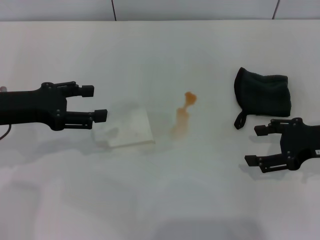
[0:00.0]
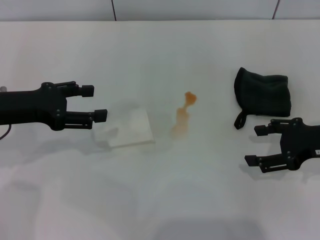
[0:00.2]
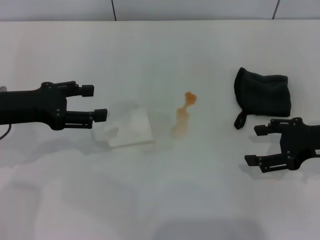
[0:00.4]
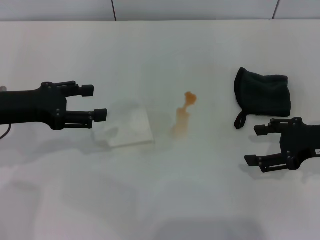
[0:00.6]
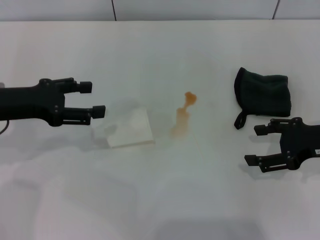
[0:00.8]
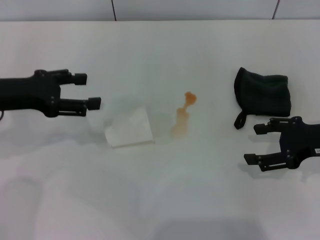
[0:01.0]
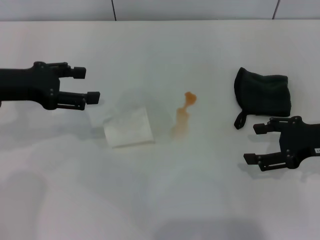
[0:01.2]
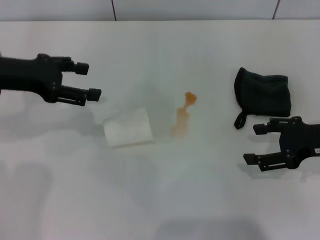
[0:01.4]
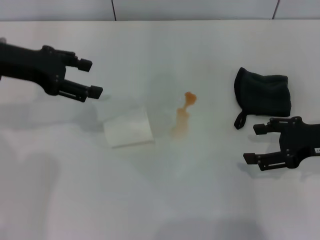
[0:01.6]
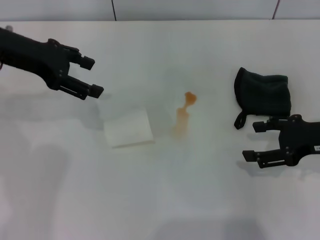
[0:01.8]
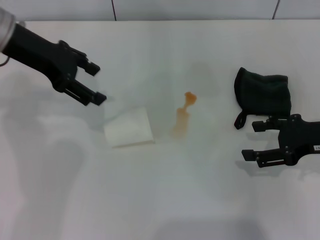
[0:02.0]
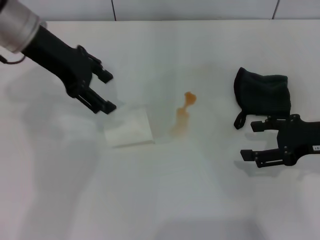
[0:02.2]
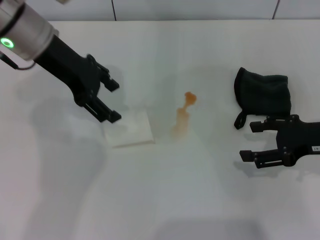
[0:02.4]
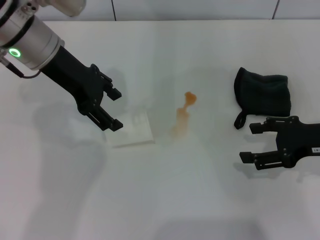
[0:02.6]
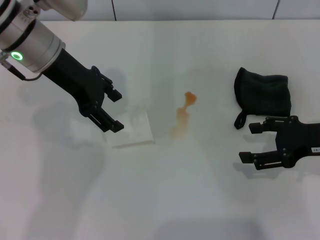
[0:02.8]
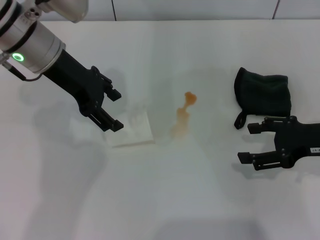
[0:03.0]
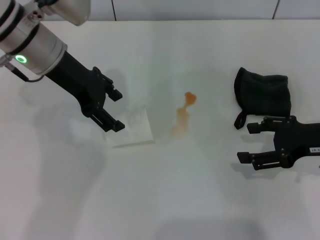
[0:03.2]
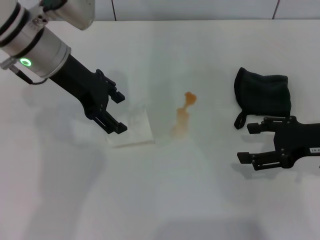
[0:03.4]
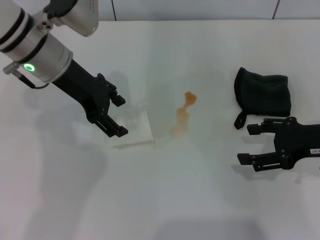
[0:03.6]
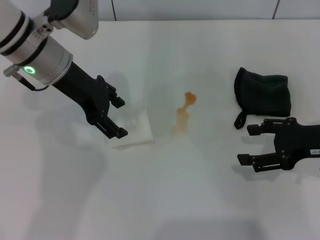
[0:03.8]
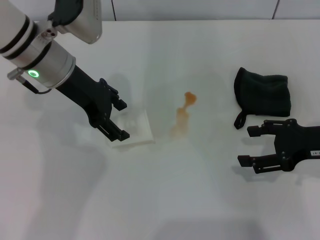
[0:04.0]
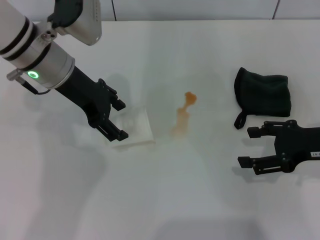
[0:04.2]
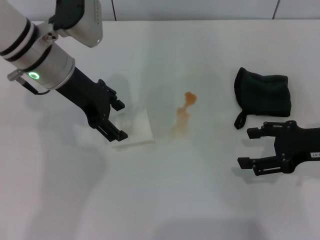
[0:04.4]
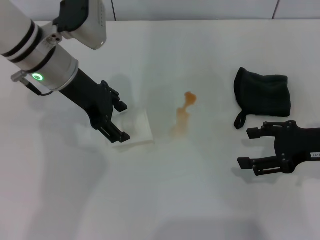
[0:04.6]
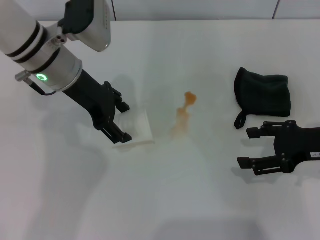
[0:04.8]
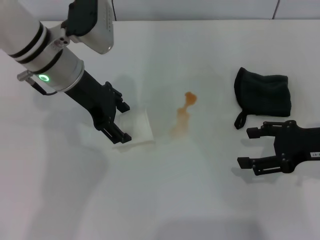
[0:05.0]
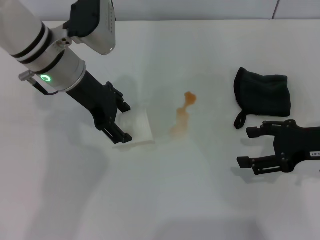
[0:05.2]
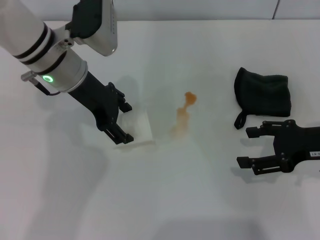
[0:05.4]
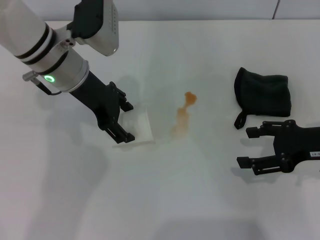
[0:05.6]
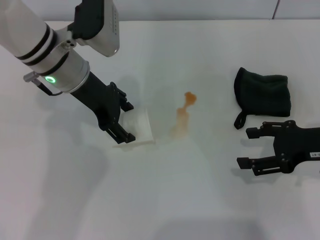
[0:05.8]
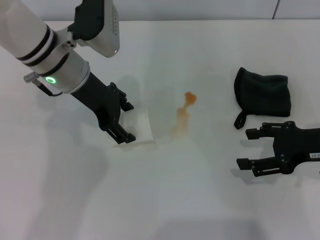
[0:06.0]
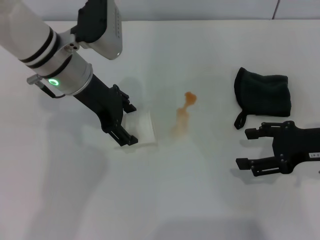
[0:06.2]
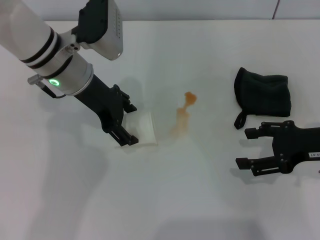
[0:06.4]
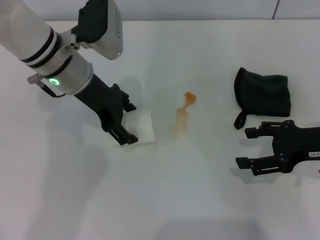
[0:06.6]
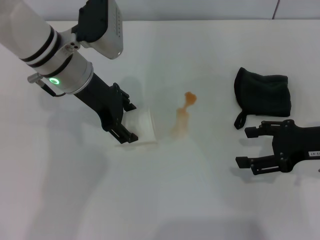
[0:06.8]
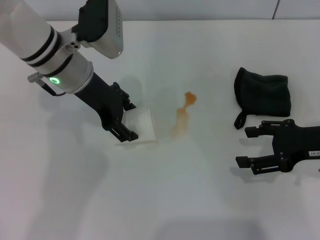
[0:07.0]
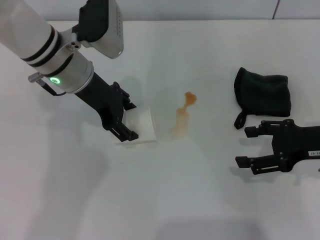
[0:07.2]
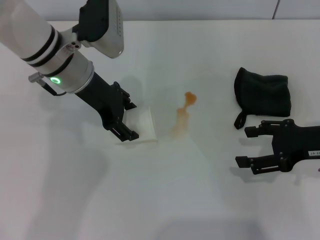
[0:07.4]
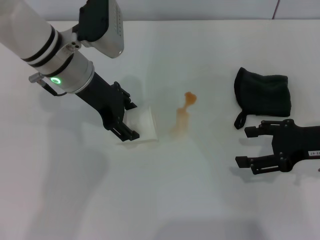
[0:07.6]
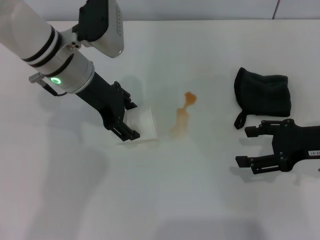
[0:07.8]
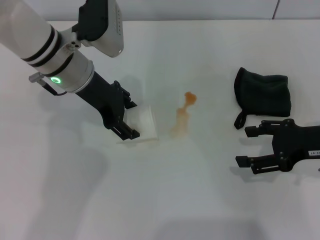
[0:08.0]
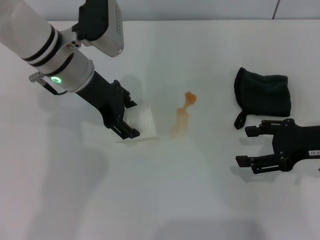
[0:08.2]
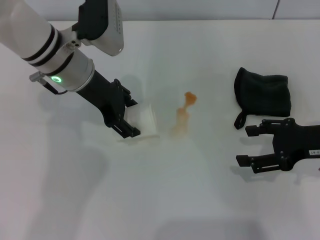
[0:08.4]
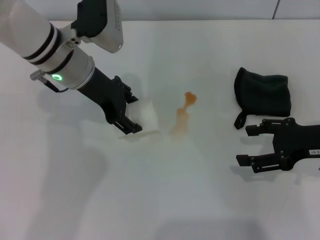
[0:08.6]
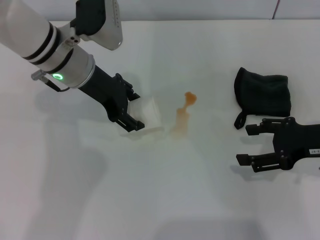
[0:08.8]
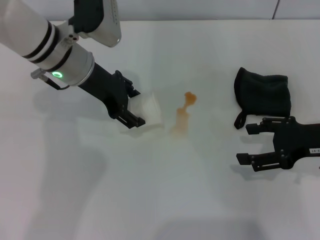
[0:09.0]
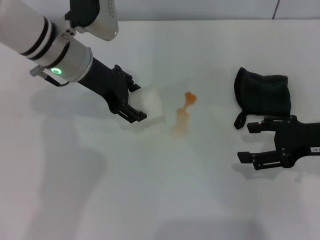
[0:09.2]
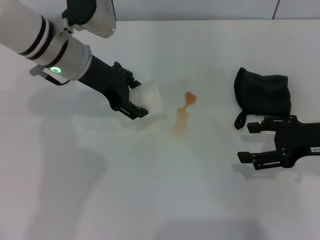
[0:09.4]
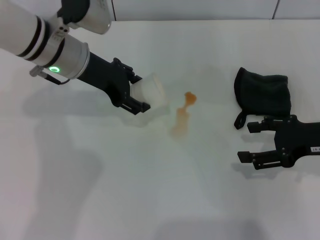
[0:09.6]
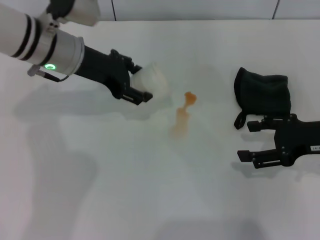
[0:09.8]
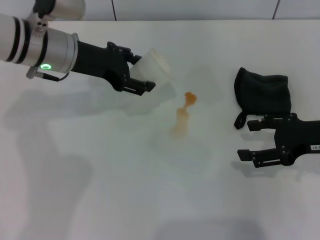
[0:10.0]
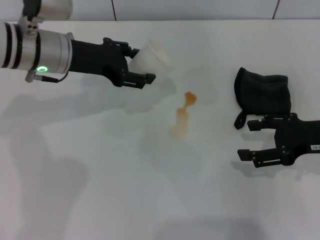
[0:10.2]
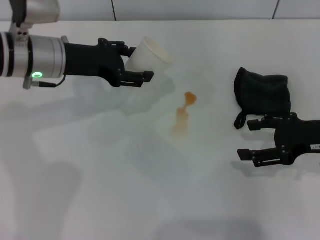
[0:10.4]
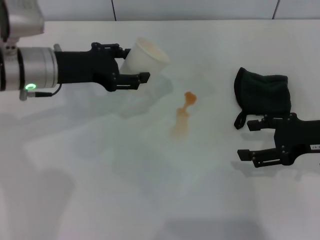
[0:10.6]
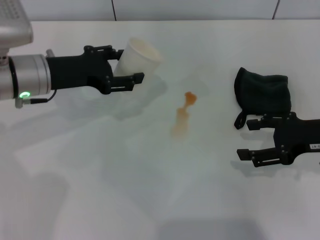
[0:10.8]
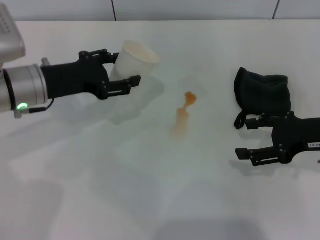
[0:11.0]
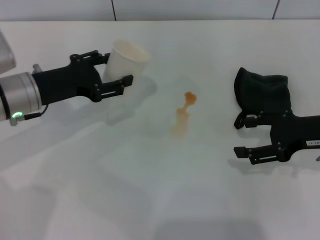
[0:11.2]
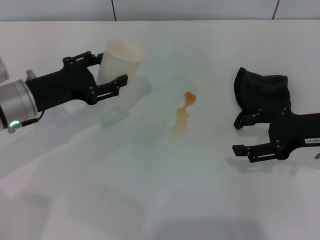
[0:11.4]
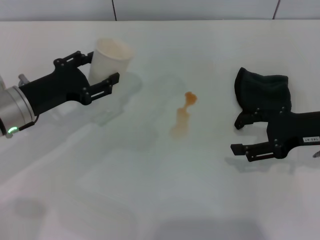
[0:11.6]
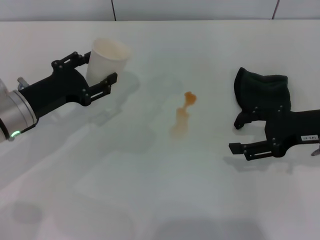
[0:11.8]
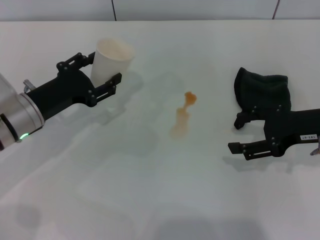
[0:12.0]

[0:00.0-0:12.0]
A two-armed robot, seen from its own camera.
Step, 0:00.0 to 0:07.2: Grasp the paper cup with the left gripper.
0:00.0 to 0:01.6: The left gripper is displaced upward and forward by approximately 10 cm.
0:01.6 to 0:03.0: The left gripper travels to the right by about 10 cm.
0:03.0 to 0:06.0: The grippers move only a little.
0:06.0 to 0:07.6: The left gripper closes its fingers.
0:07.6 to 0:09.0: There are only small adjustments of the grippers.
0:09.0 to 0:10.4: The left gripper shifts by roughly 5 cm.
0:10.4 to 0:12.0: The left gripper is displaced downward and backward by some 10 cm.

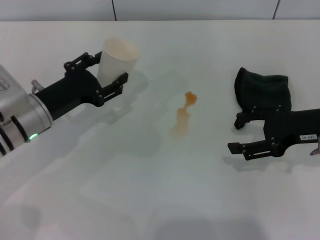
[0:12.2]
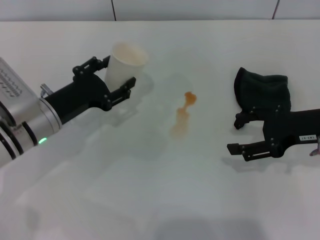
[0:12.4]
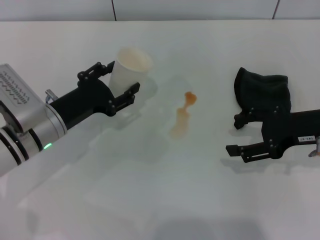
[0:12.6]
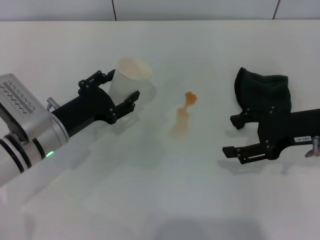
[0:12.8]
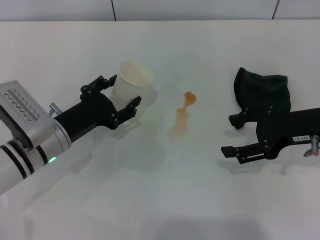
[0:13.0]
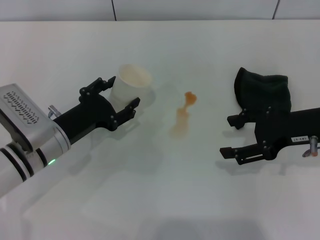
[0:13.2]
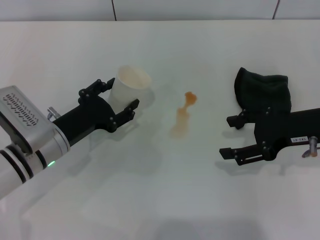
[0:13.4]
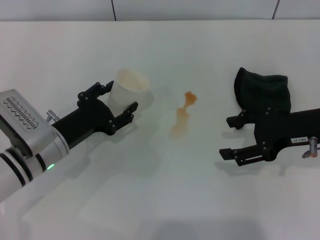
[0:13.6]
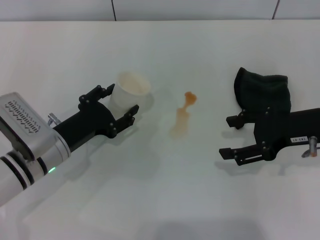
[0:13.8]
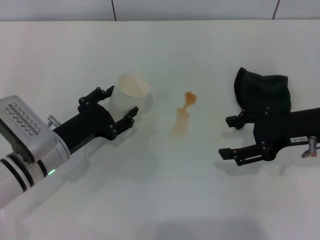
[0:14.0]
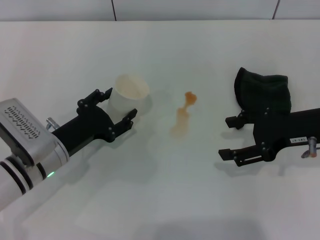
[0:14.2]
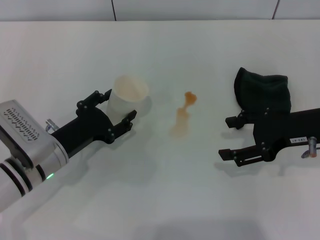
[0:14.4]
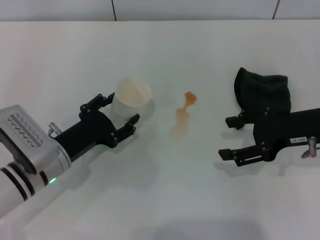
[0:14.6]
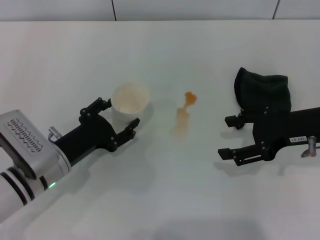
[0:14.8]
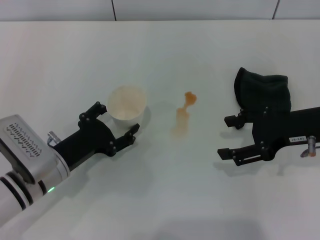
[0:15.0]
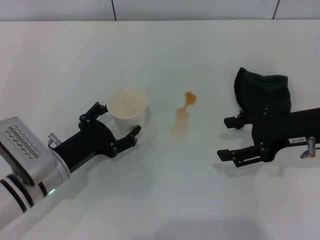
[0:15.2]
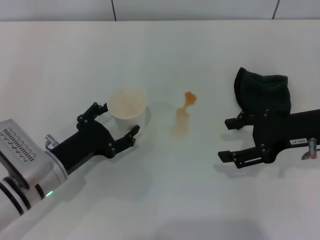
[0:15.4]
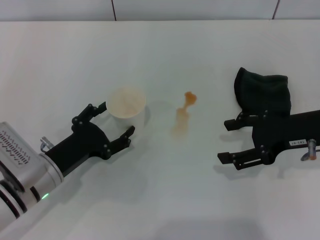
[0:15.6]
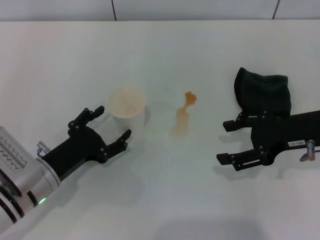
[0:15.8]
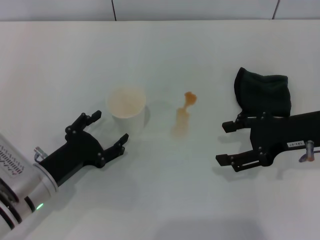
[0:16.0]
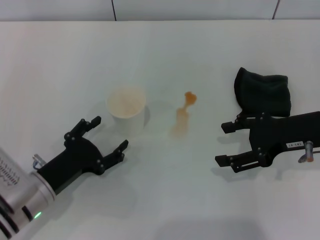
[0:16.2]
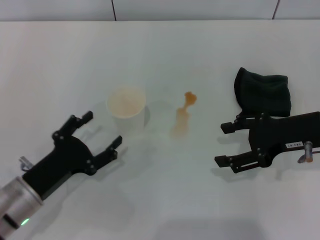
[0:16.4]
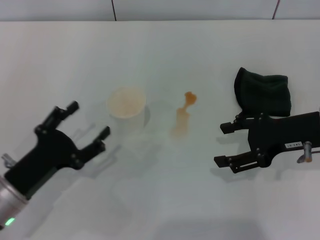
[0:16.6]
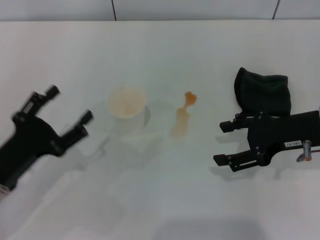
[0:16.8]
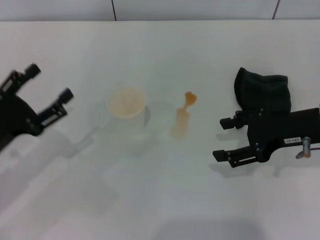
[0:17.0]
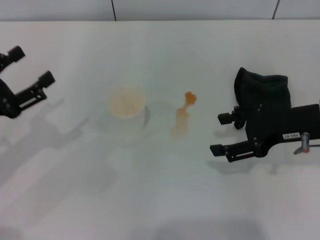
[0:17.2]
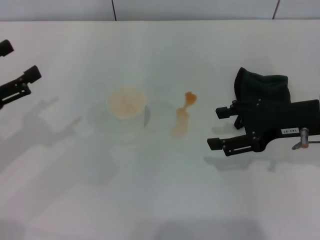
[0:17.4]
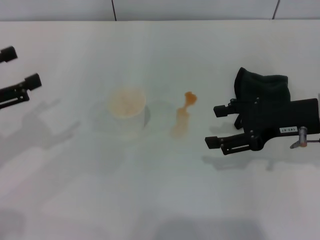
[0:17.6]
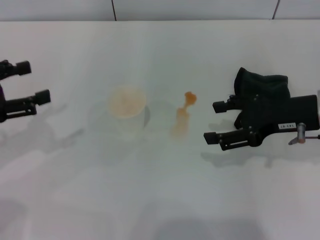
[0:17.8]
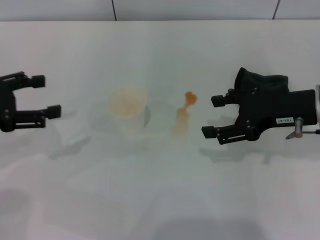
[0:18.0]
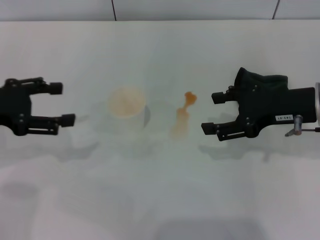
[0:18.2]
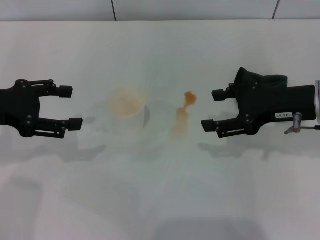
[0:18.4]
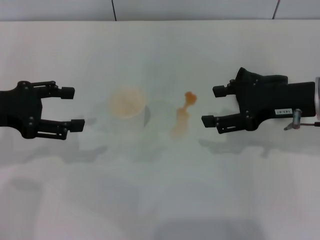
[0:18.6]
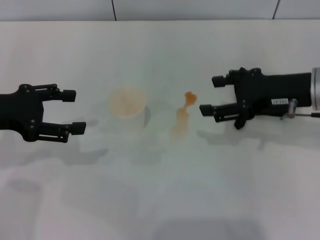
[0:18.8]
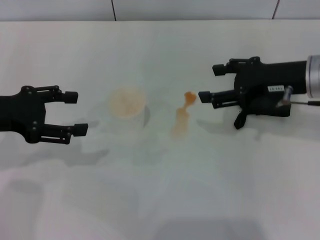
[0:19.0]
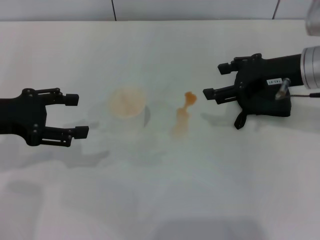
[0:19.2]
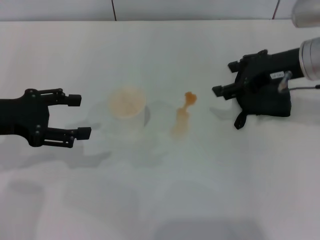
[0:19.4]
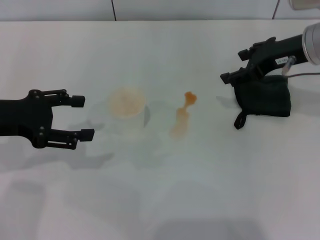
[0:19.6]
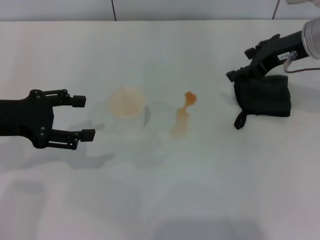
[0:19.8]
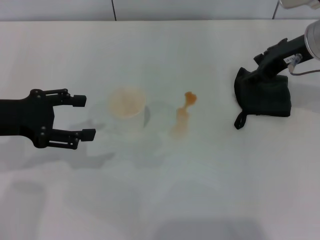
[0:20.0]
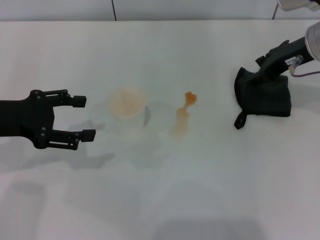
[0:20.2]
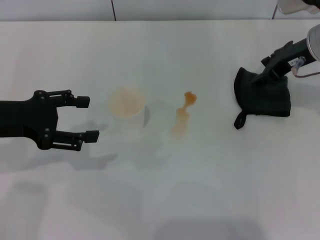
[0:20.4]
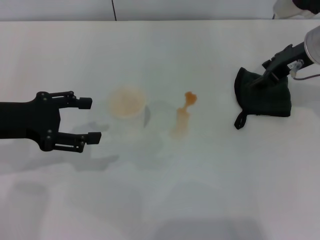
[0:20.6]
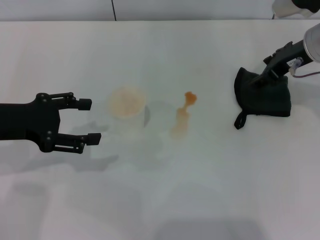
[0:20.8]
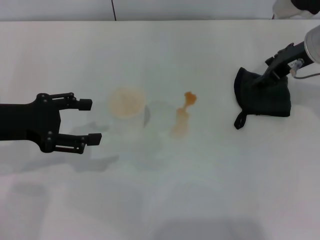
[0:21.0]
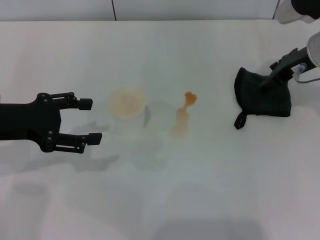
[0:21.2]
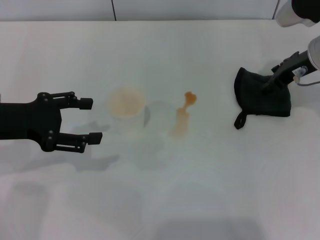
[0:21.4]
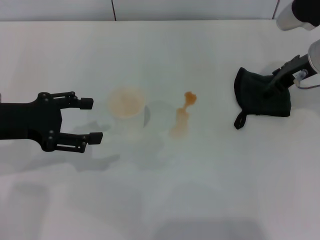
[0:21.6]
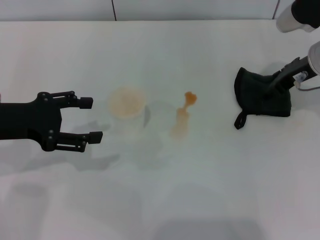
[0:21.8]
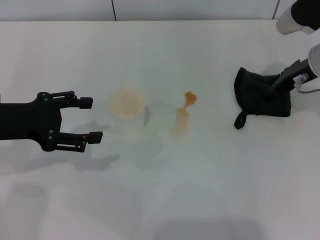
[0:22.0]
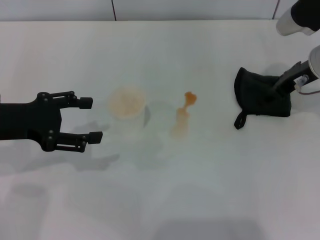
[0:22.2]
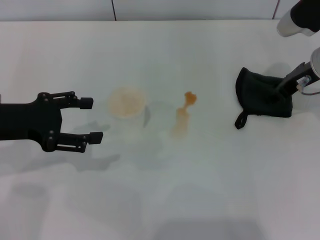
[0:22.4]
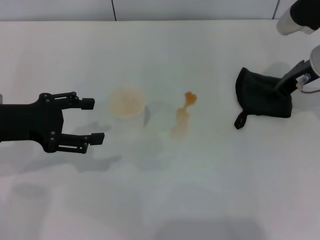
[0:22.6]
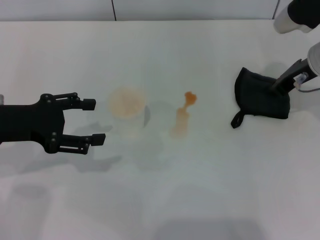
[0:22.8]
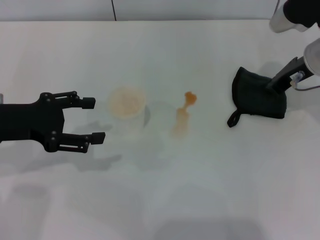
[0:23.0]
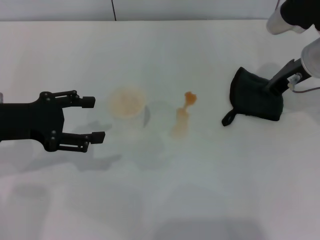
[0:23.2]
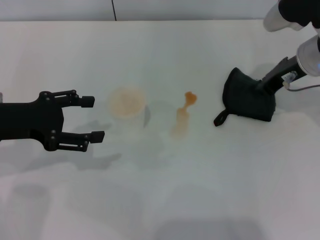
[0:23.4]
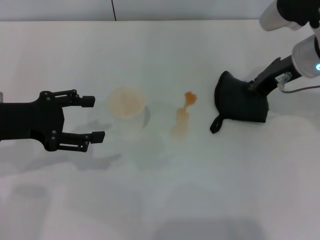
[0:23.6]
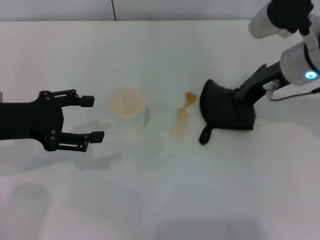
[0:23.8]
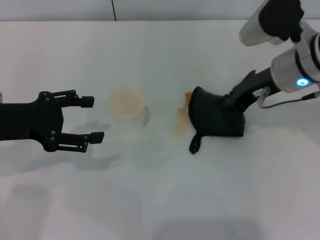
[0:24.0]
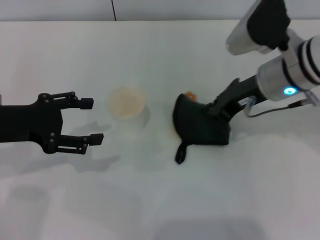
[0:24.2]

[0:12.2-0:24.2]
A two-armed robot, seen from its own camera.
Step, 0:12.2 to 0:16.2: Stand the paper cup upright with the left gripper.
Step, 0:16.4 to 0:23.0: Grasp the rag with the right gripper.
0:12.2 to 0:13.8: The left gripper shifts by roughly 5 cm.
0:13.8 to 0:15.2: There are only small adjustments of the grippers.
0:15.2 to 0:16.6: The left gripper heads backward, covering some 5 cm, and opens up.
0:16.6 to 0:18.2: The left gripper heads upward, forward and to the left, covering approximately 20 cm.
0:18.2 to 0:19.8: The right gripper travels forward by roughly 10 cm.
0:19.8 to 0:21.2: There are only small adjustments of the grippers.
0:21.2 to 0:22.6: The right gripper closes its fingers.
0:22.6 to 0:24.2: The right gripper heads to the left and backward, covering about 10 cm, and closes its fingers.
